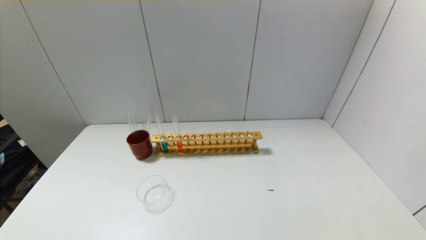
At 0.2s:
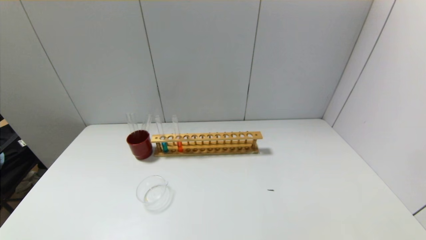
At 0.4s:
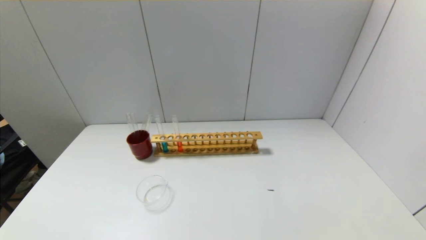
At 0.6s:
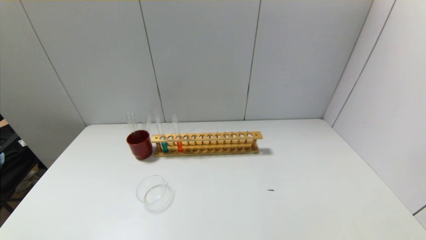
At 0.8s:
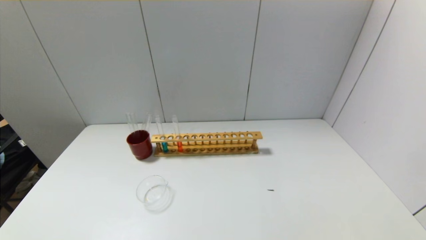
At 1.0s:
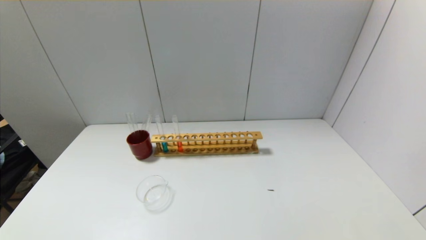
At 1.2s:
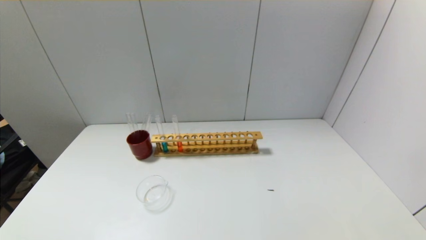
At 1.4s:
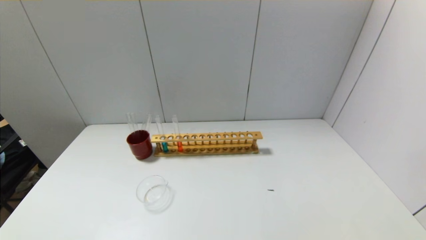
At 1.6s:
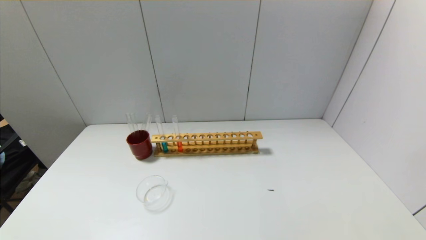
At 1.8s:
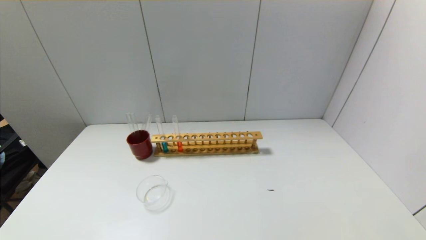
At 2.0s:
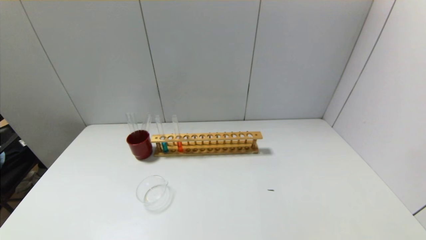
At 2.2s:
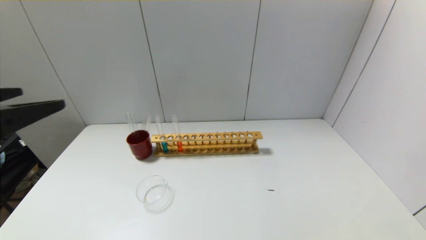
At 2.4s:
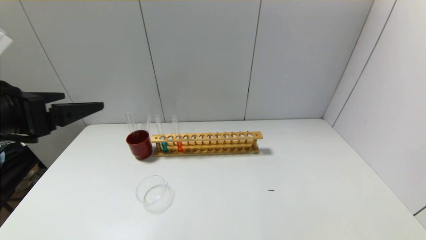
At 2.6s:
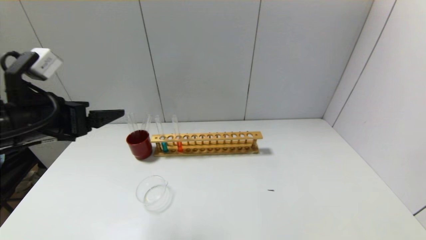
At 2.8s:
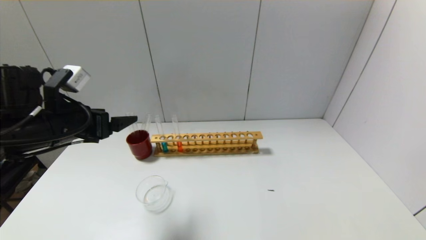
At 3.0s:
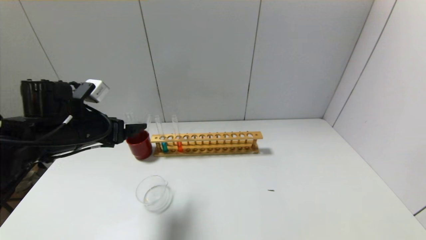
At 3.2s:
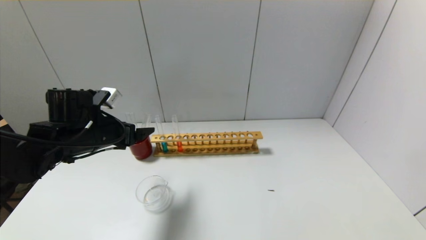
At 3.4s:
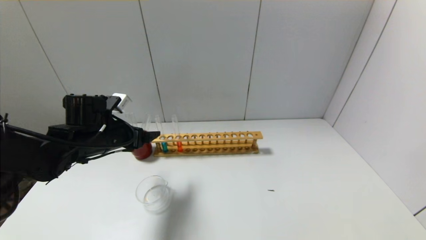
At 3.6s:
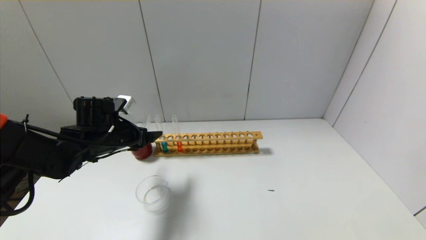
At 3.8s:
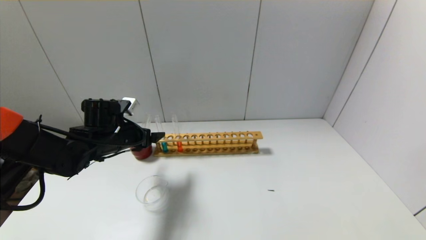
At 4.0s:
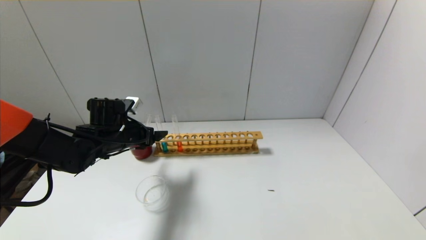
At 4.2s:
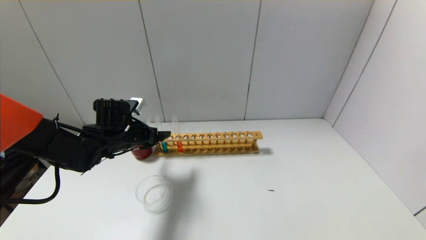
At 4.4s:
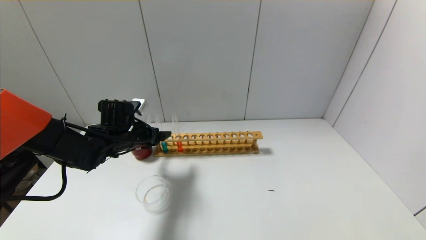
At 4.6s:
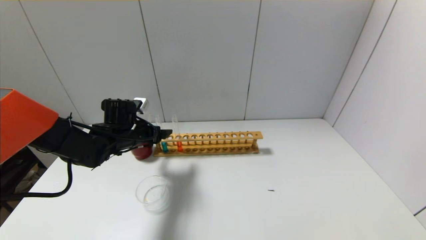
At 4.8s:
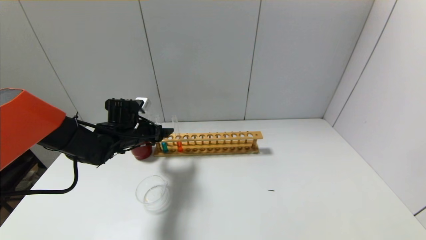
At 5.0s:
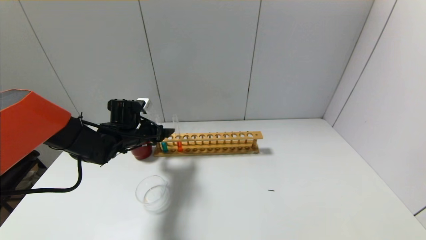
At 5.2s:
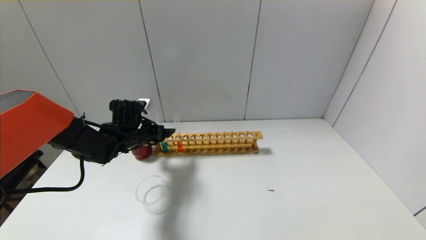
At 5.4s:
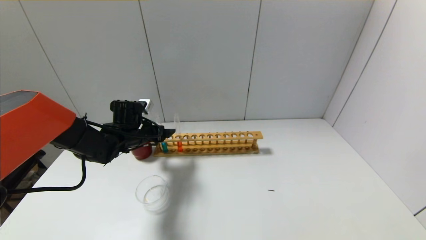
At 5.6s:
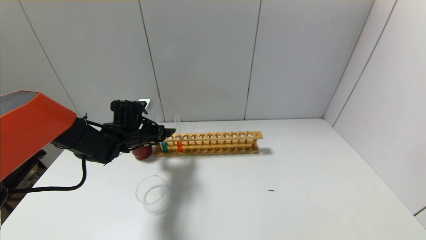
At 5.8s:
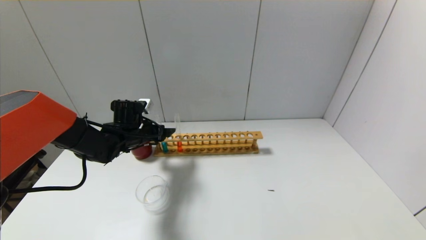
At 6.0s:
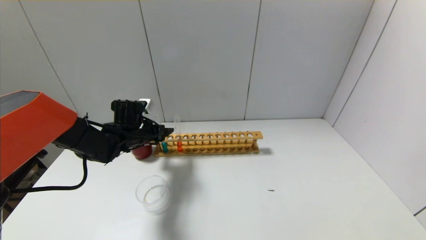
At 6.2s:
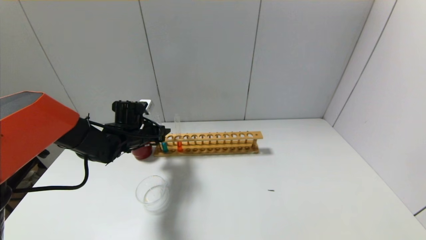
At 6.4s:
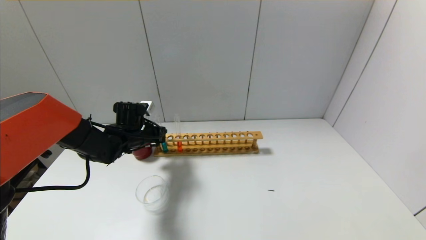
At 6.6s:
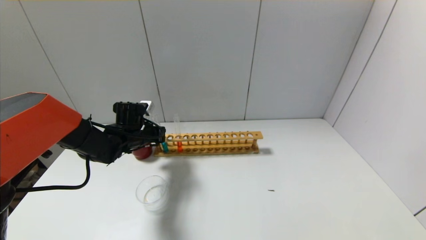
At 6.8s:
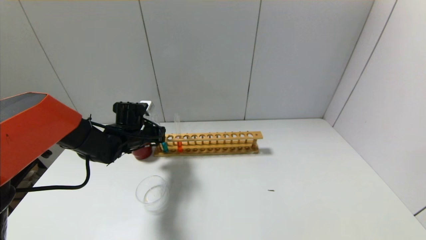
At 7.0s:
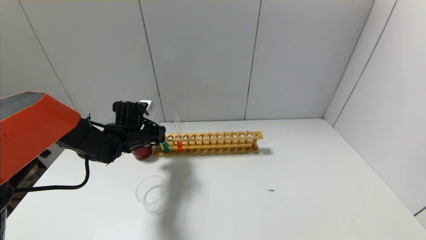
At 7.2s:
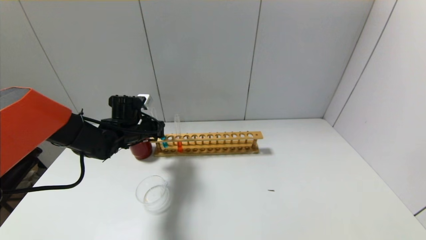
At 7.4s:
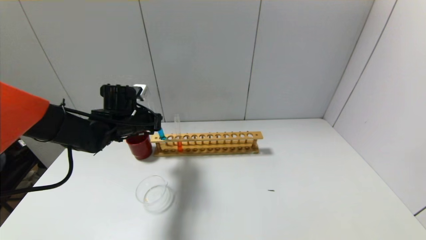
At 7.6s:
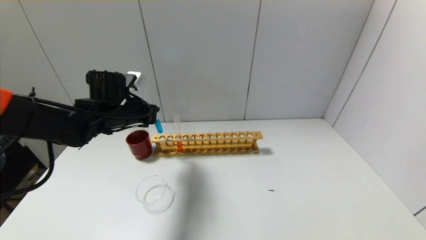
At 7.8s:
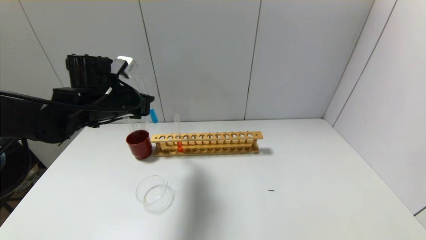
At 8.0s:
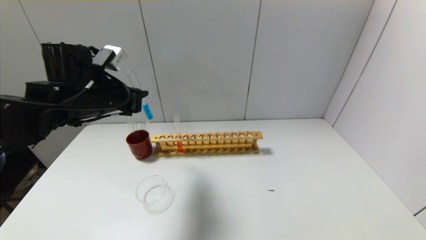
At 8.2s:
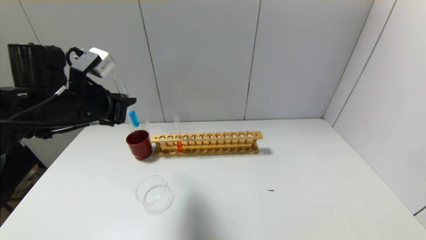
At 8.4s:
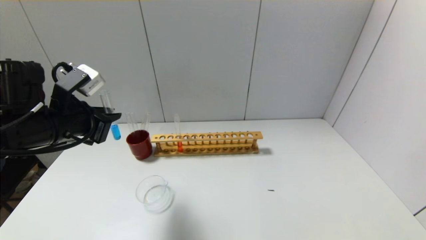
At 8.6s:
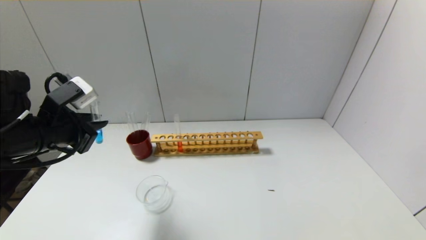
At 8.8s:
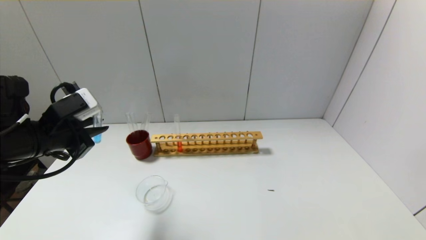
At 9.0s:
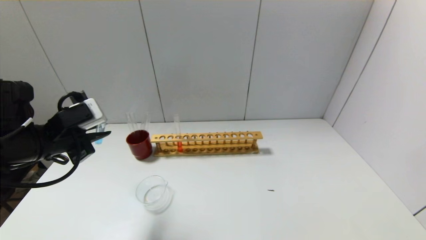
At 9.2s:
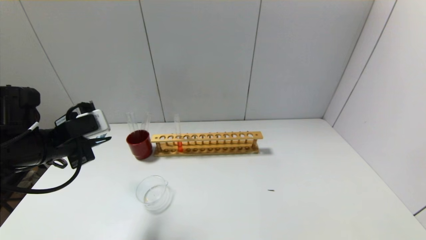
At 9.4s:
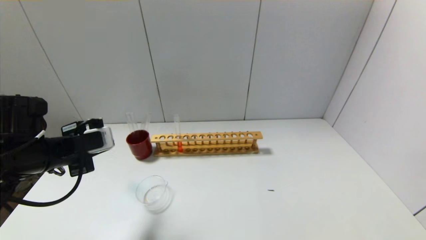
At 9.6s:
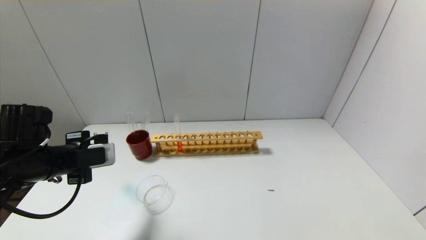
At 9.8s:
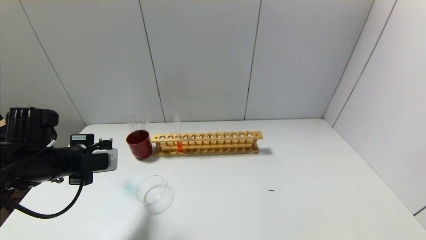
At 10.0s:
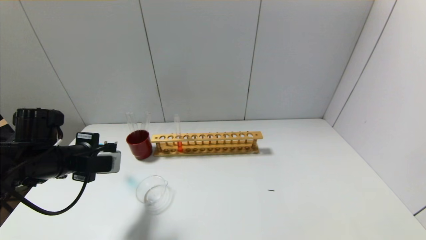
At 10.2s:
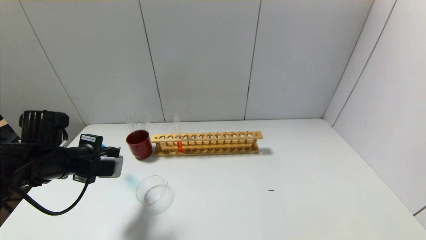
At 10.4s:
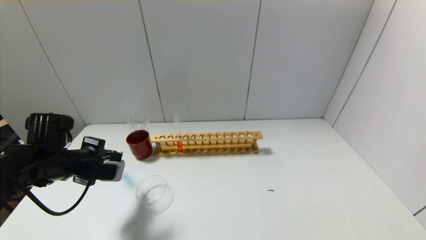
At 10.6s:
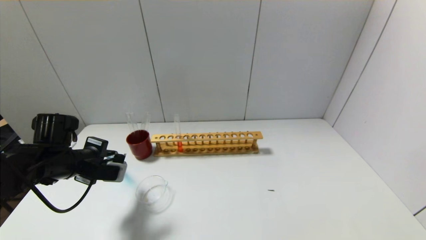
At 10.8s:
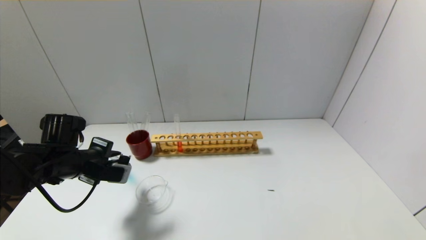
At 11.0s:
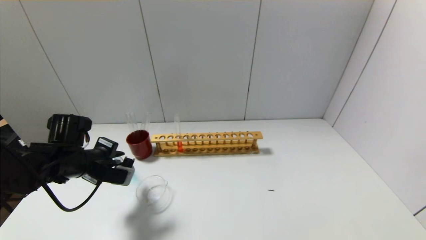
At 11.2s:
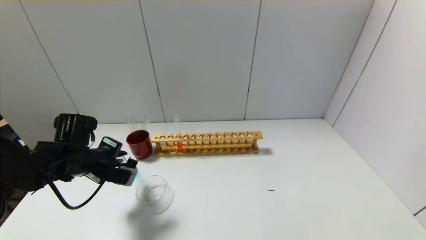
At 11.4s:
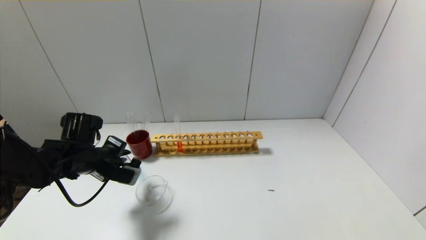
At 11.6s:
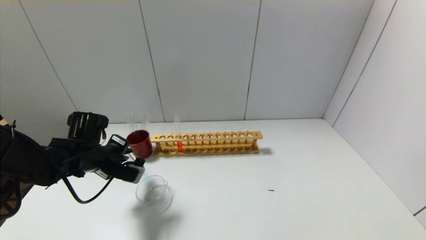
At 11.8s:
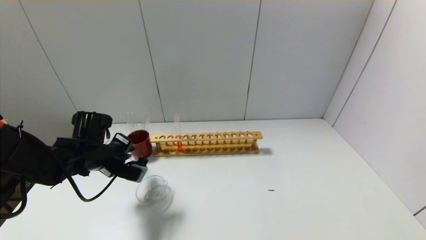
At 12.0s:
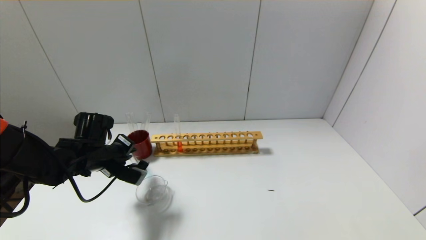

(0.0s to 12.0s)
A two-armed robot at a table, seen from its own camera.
Step, 0.0s - 6.6s: Grasp the blue reagent with the left gripper.
1.6s - 3.0s: The left gripper travels forward by some 35 cm.
3.0s - 4.4s: The left gripper moves forward and downward, approximately 10 cm.
4.4s - 6.0s: The grippers move only a little.
6.0s - 7.6s: The left gripper shifts approximately 10 cm upward, and closes up.
7.6s - 9.0s: The left gripper travels backward and to the left by approximately 15 cm.
9.0s - 10.4s: The left gripper goes some 10 cm downward.
10.4s - 12.0s: The left gripper shifts by about 5 cm.

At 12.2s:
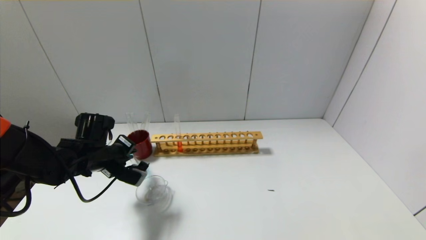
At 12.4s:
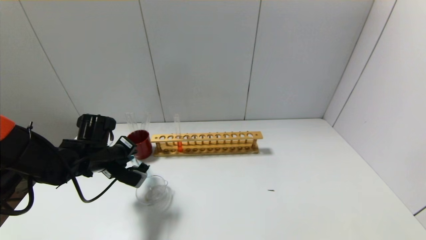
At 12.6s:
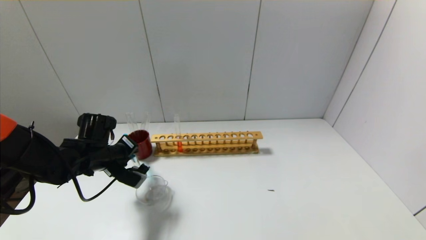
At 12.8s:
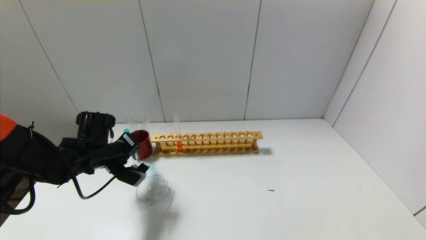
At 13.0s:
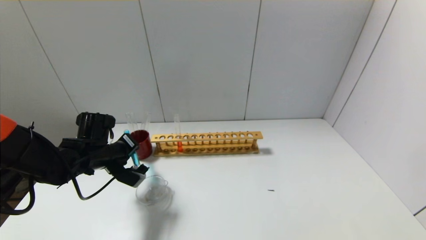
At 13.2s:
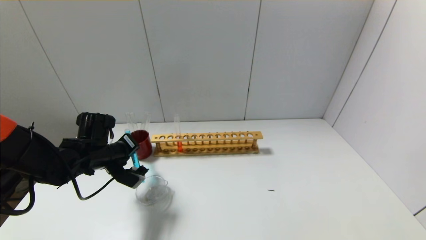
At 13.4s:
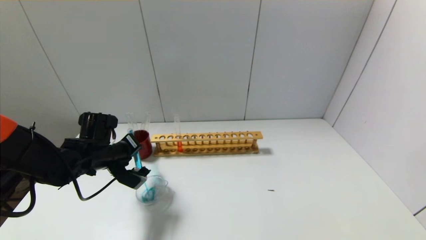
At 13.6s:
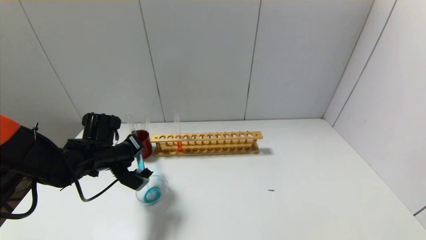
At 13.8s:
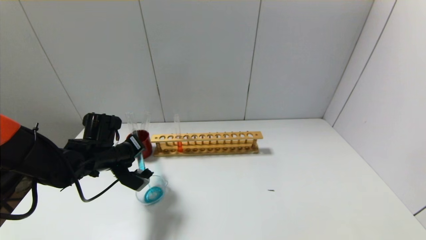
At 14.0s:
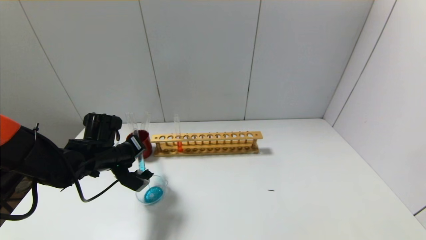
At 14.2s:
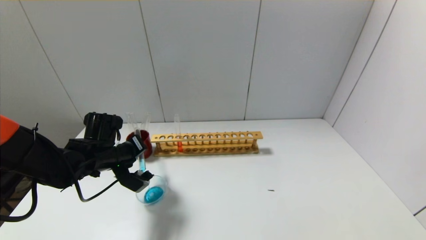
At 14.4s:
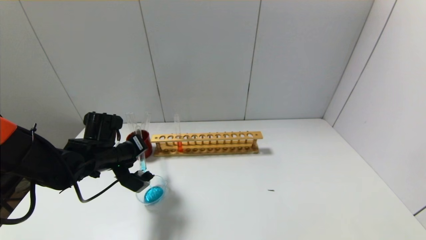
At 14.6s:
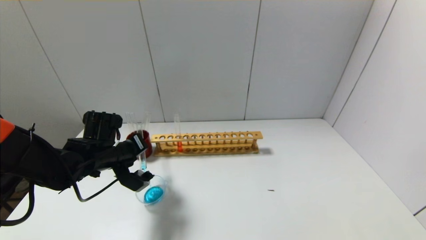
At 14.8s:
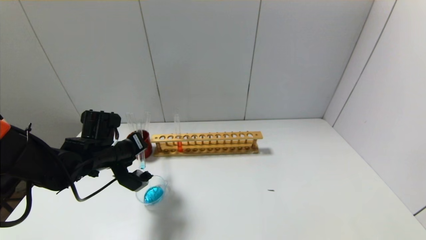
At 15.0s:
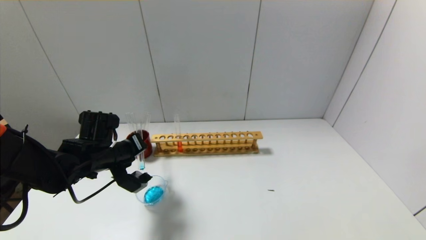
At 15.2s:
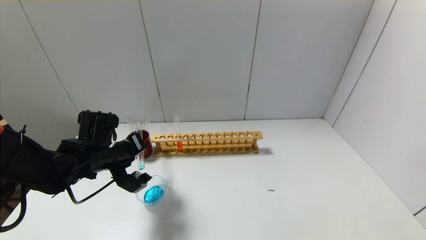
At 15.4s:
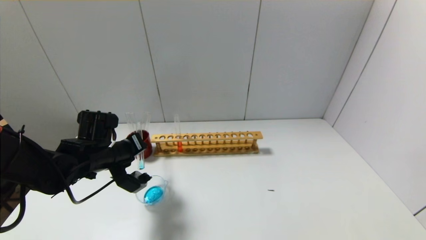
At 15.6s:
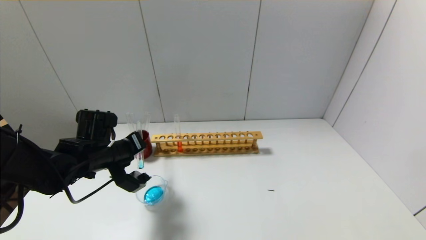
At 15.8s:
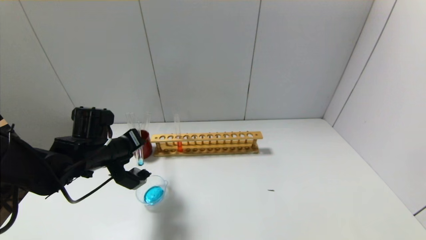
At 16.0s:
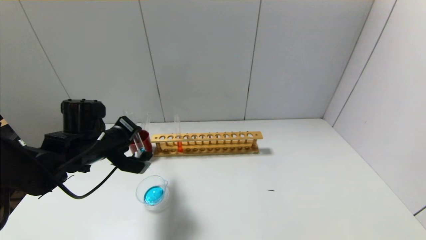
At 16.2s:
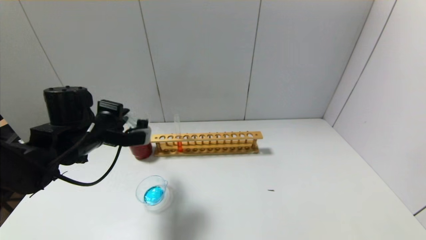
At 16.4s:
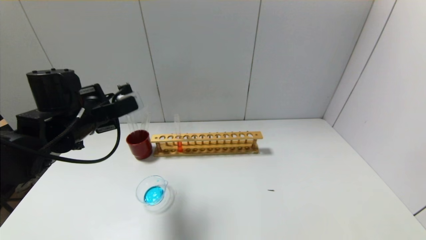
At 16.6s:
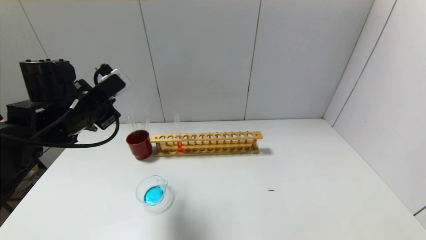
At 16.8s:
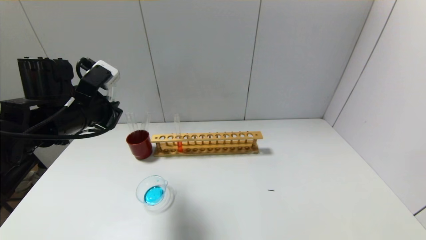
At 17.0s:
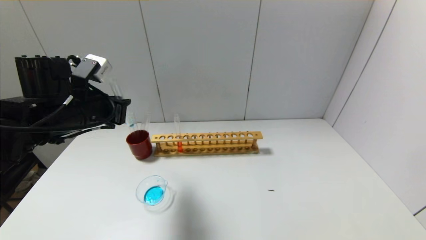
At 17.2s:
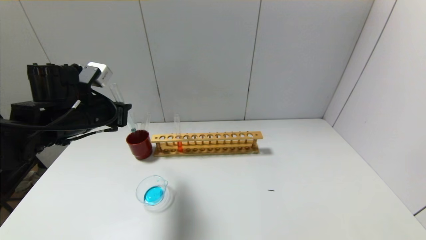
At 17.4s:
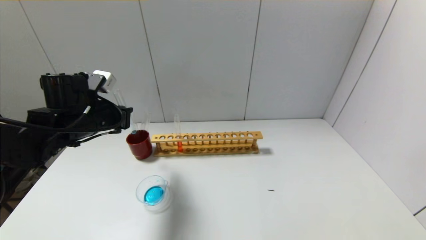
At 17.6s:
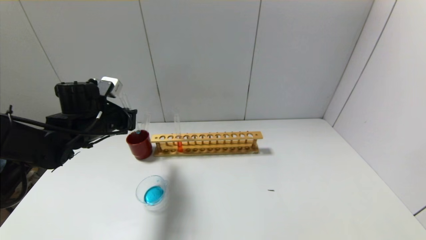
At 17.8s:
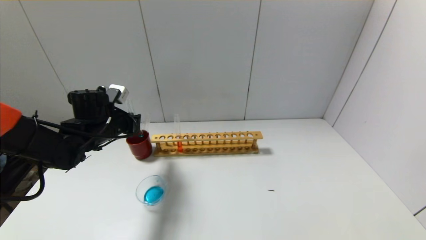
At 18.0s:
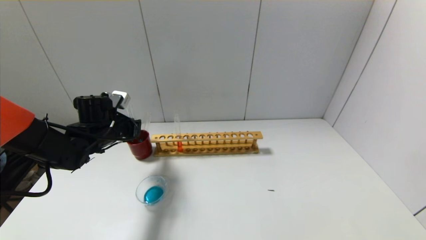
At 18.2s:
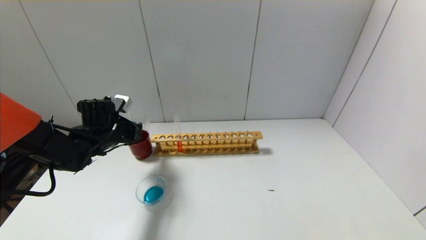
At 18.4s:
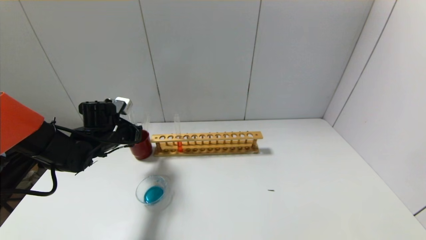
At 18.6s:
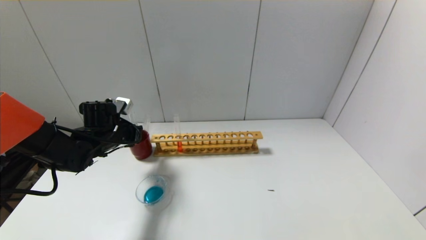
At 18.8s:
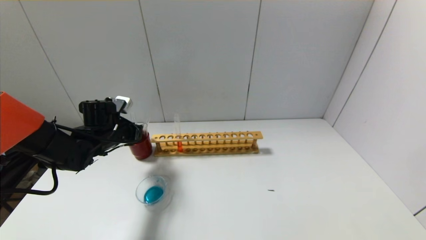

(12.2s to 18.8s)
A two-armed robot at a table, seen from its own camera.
Step, 12.2s - 16.0s: Pour the blue reagent into the graduated cylinder with the left gripper.
12.2s - 13.8s: The grippers make only small movements.
13.8s - 15.4s: There are only small adjustments of the grippers.
15.4s - 17.2s: The left gripper goes roughly 10 cm upward.
17.2s - 18.8s: The left gripper goes approximately 15 cm downward and forward.
